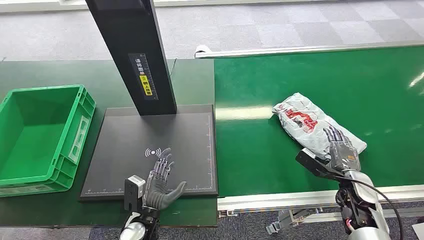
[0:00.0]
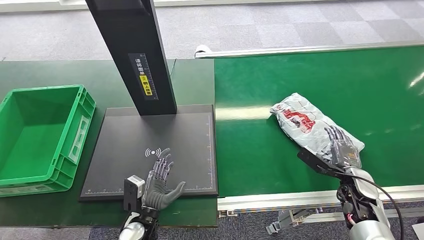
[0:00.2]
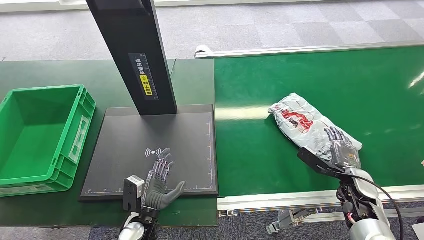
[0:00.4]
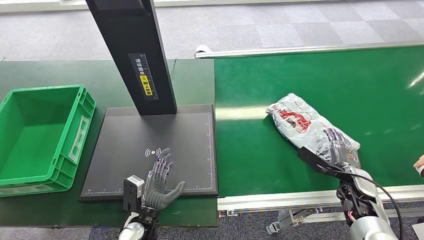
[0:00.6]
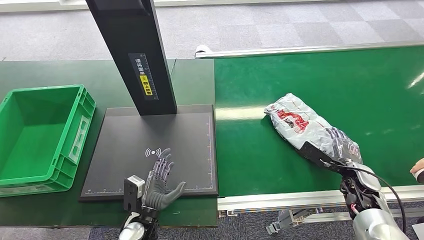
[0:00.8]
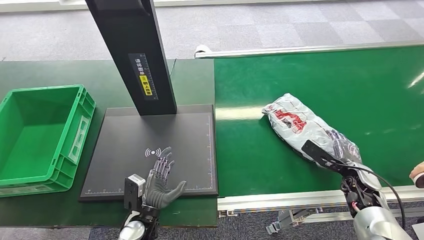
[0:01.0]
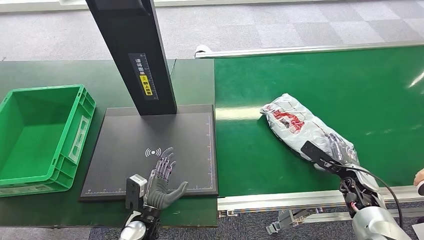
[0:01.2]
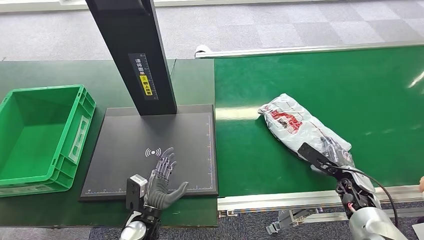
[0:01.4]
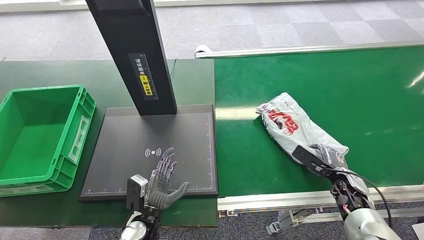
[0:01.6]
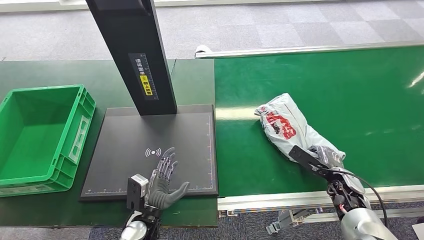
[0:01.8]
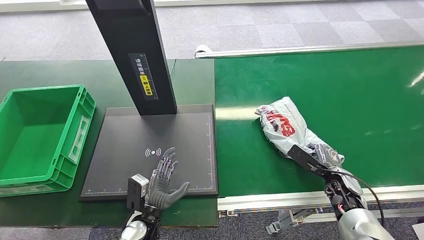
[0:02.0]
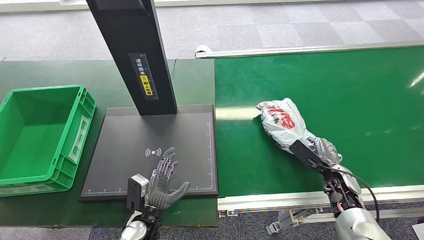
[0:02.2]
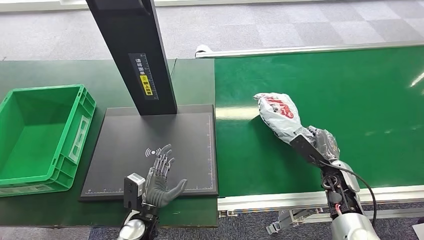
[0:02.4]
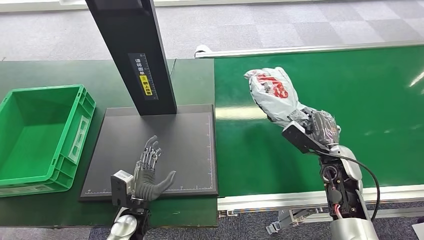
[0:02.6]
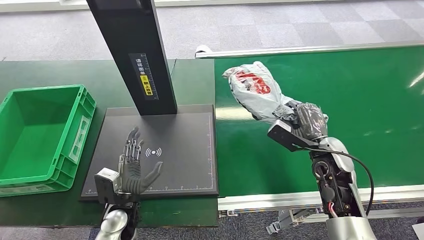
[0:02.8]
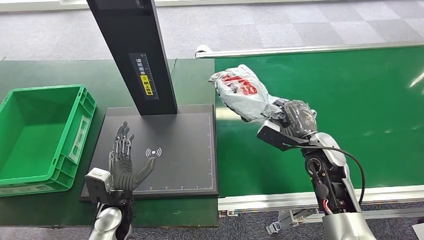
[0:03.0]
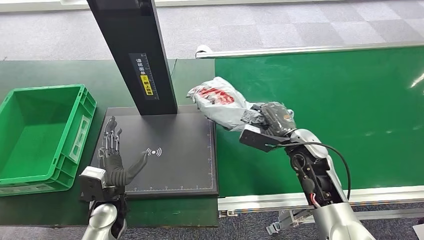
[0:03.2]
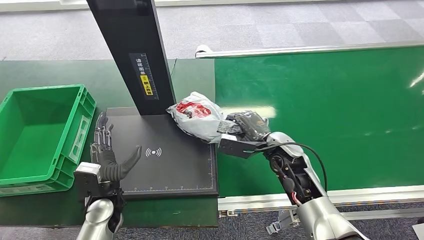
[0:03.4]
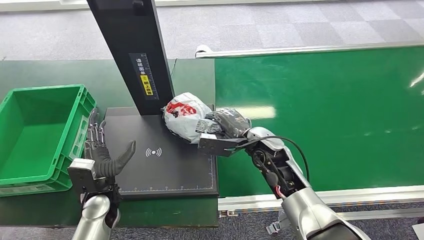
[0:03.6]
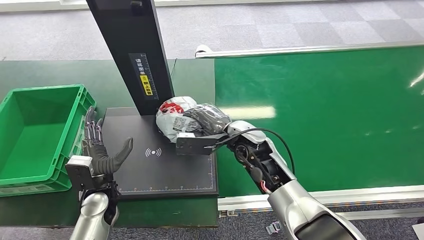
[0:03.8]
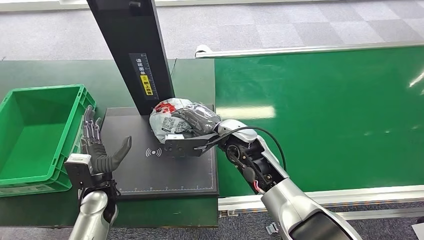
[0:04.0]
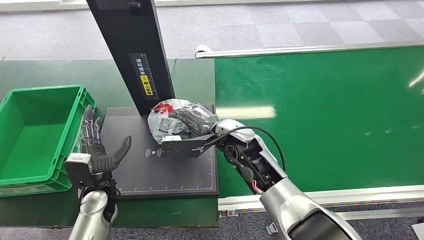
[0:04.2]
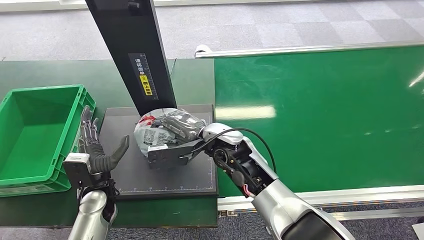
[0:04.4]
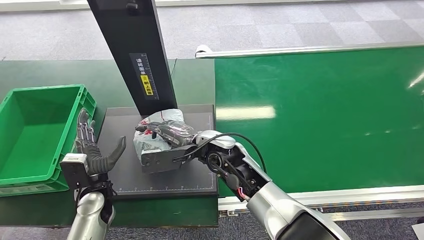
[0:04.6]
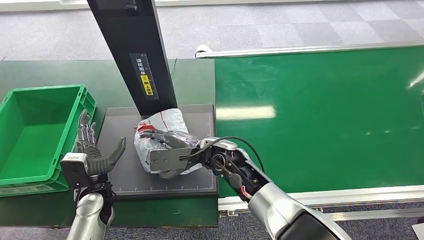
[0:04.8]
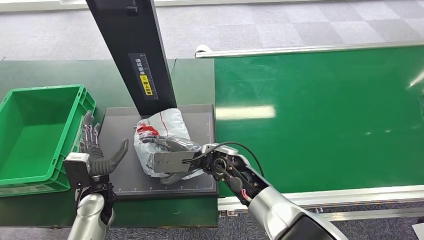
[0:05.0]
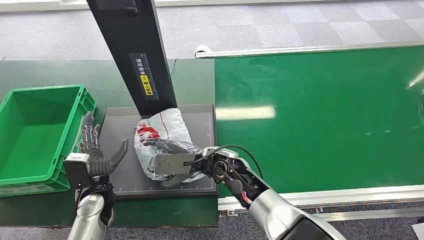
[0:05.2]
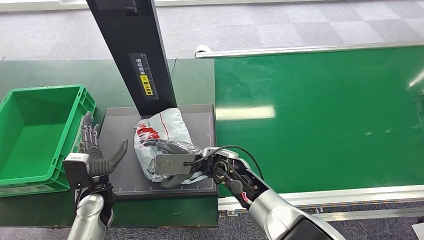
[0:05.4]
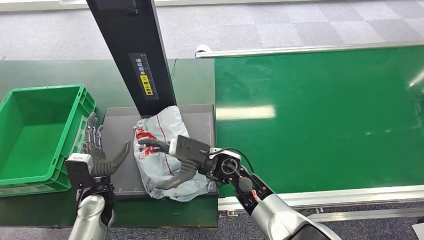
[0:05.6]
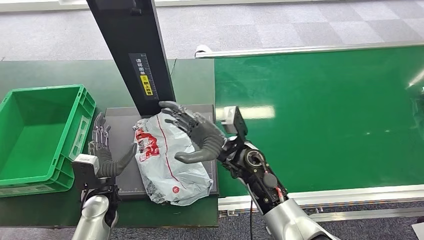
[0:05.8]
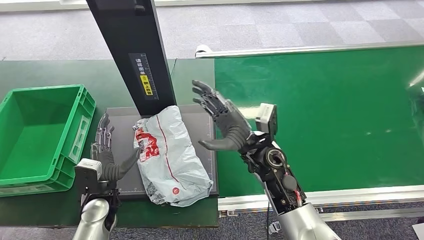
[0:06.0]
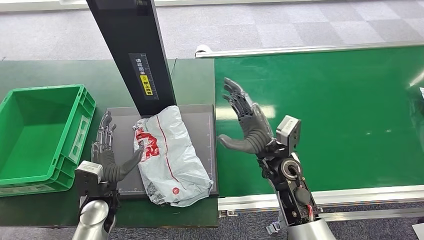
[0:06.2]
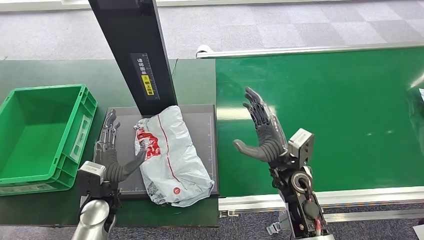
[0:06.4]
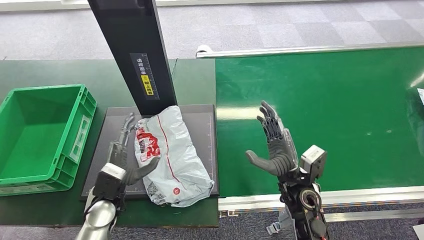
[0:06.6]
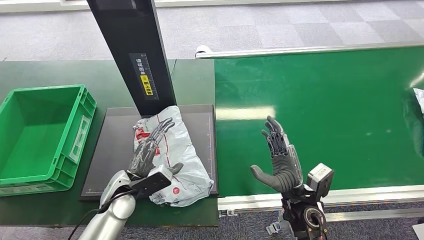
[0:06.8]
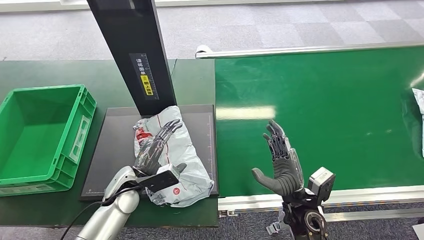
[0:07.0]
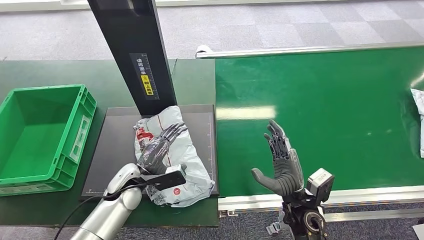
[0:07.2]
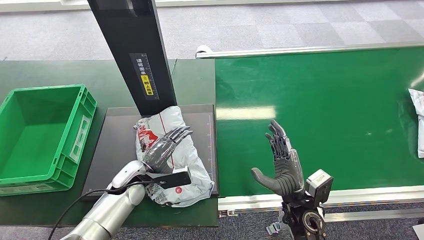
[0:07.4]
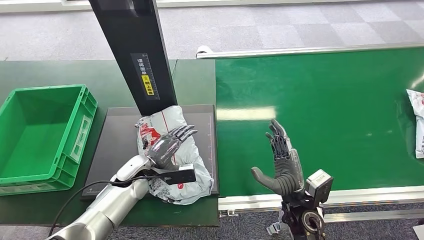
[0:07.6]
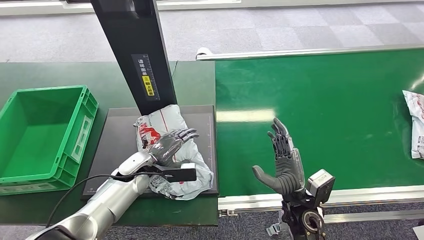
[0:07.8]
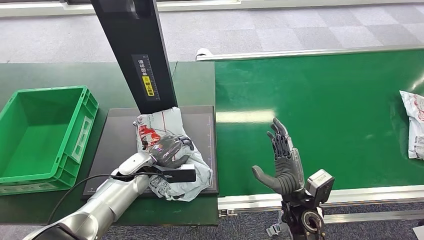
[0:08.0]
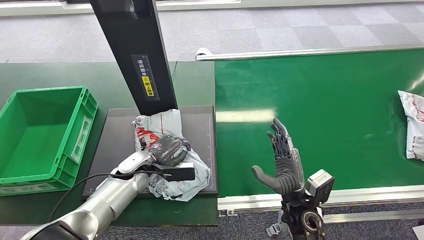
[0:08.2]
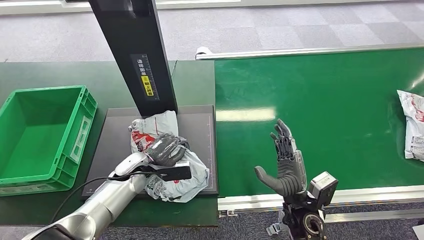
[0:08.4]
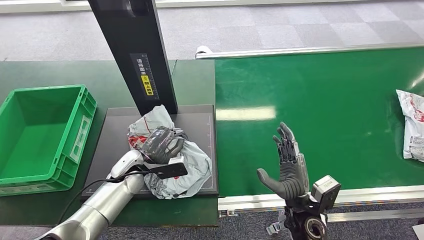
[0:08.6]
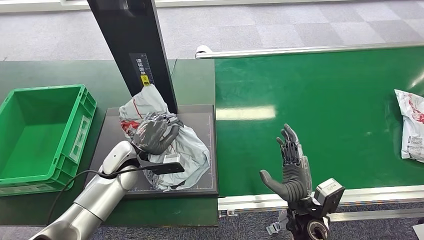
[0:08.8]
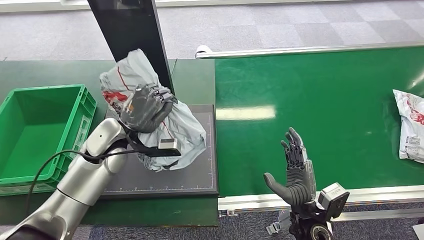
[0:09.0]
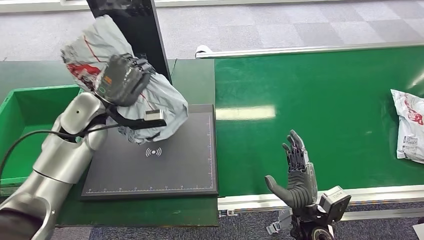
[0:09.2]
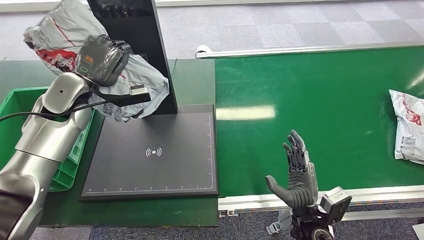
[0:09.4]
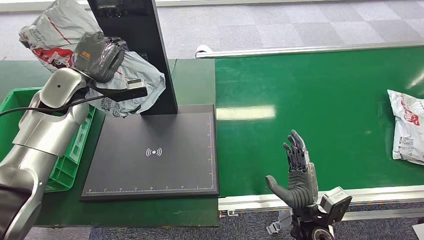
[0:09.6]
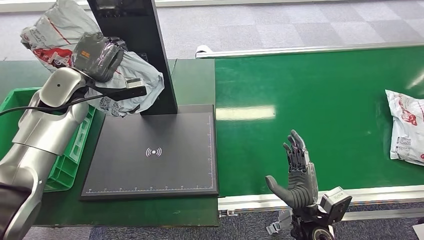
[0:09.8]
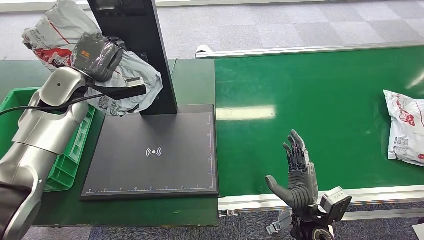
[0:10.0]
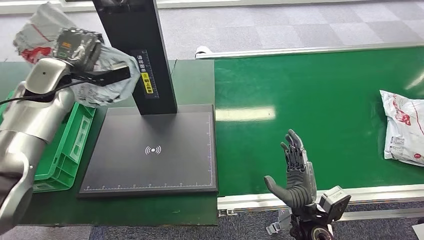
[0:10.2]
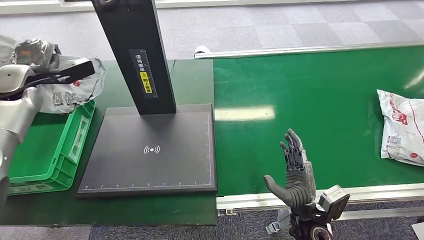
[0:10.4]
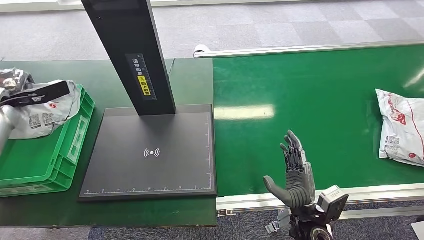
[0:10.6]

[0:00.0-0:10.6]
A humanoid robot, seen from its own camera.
Step, 0:00.0 to 0:03.0: Pick up the package from the conveyor belt.
Step, 0:03.2 to 0:06.2: Place the package onto the inbound machine.
Step, 0:06.6 to 0:09.8: Pick up the package from the inbound machine.
0:01.6 to 0:03.0: The right hand goes roughly 20 cm to the left and upward. Meanwhile the left hand travels to the left and upward by about 10 cm.
0:04.6 to 0:06.0: The right hand is displaced to the right by about 10 cm.

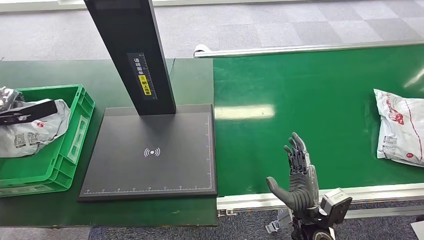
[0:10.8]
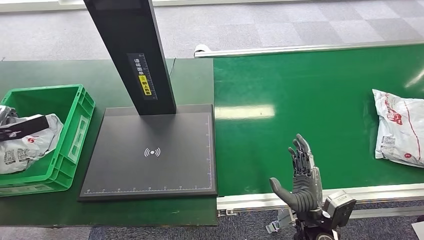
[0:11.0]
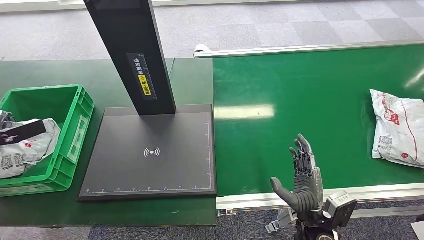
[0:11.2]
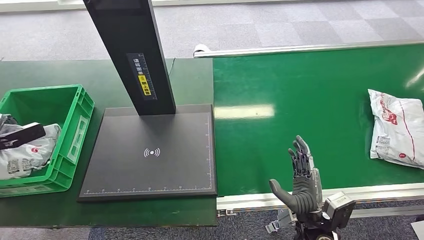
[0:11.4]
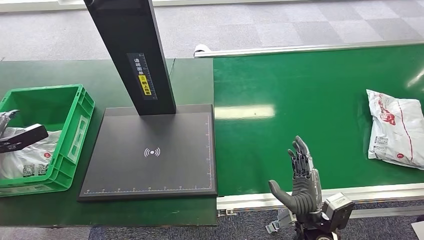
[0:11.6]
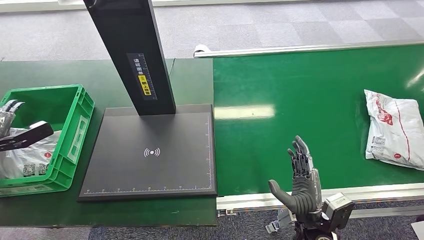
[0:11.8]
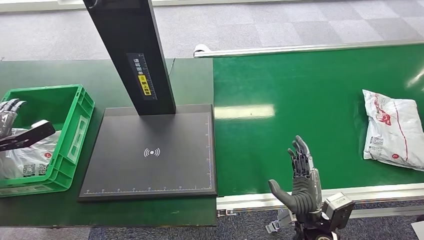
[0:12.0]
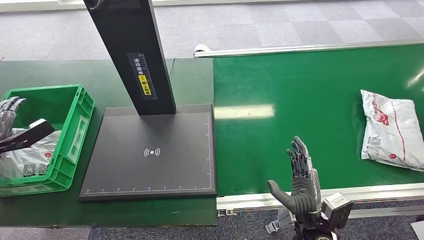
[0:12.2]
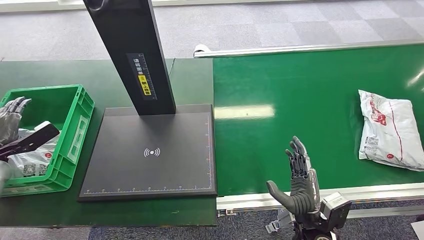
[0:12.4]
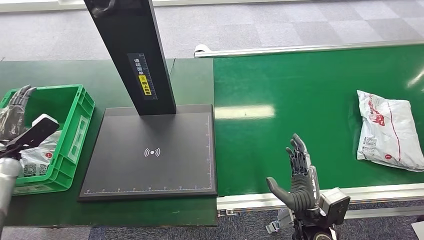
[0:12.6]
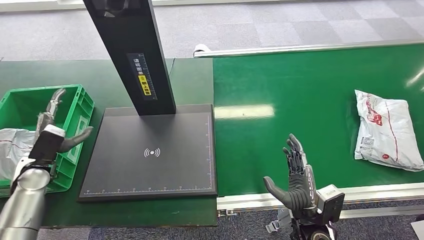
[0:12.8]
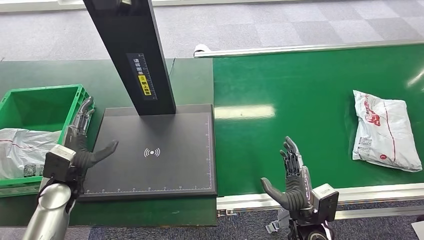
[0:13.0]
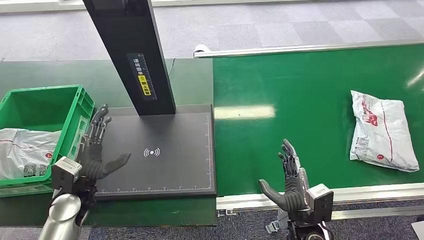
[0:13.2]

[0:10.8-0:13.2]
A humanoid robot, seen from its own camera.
Step, 0:10.8 to 0:13.0: Place the package into the parcel locker.
0:10.8 to 0:12.0: The left hand shifts some 10 cm downward and backward.
0:12.0 to 0:13.2: The left hand moves to the right, some 25 cm.

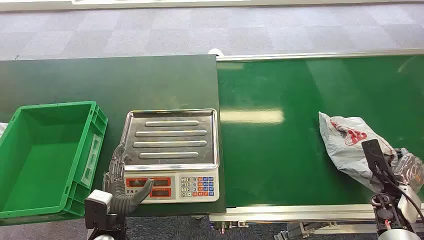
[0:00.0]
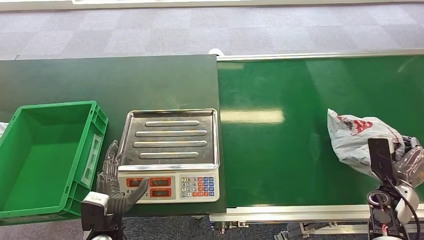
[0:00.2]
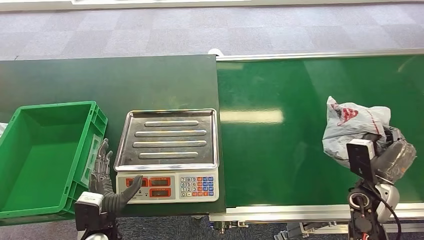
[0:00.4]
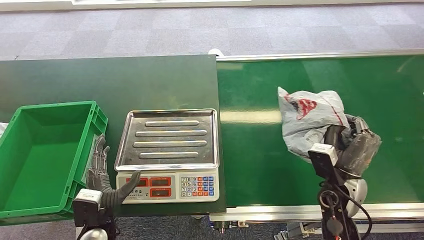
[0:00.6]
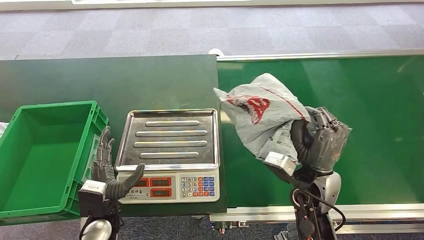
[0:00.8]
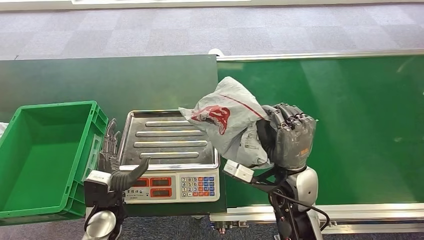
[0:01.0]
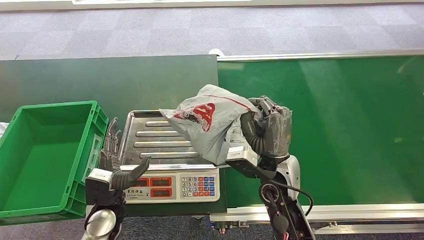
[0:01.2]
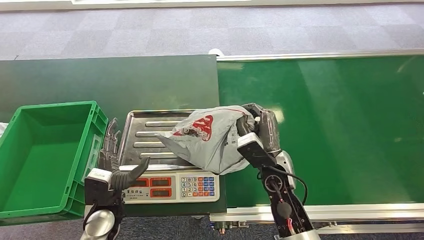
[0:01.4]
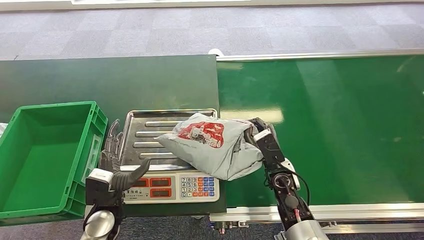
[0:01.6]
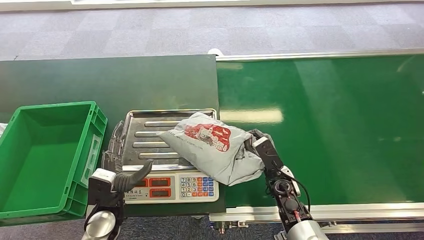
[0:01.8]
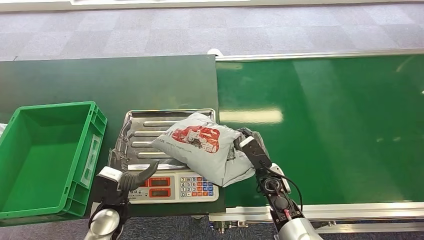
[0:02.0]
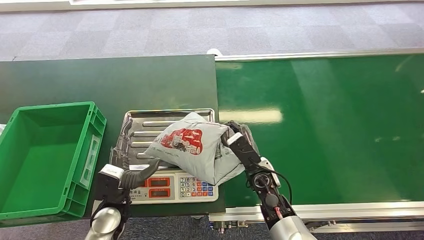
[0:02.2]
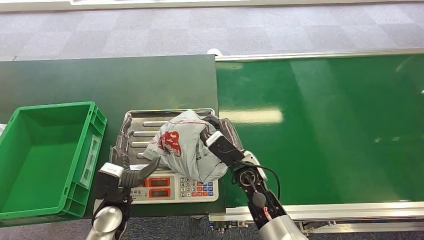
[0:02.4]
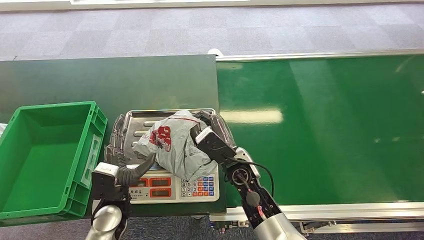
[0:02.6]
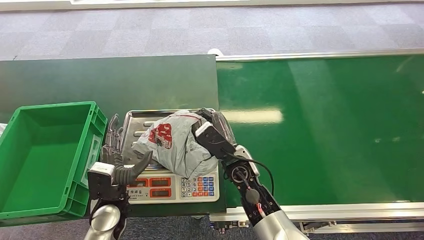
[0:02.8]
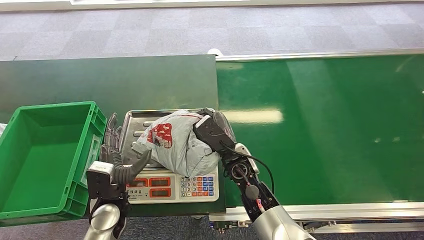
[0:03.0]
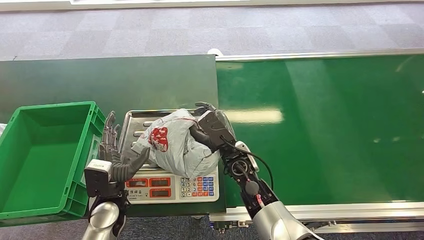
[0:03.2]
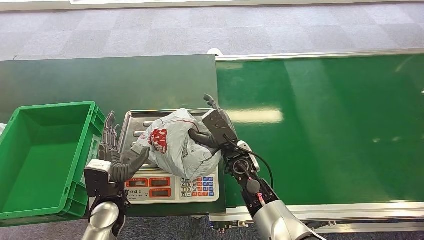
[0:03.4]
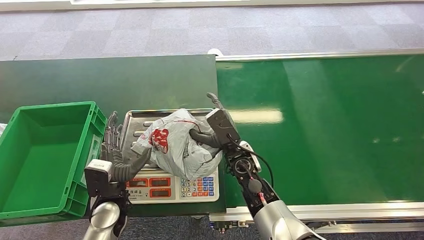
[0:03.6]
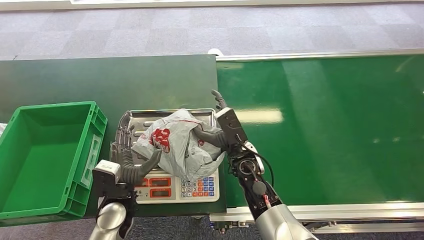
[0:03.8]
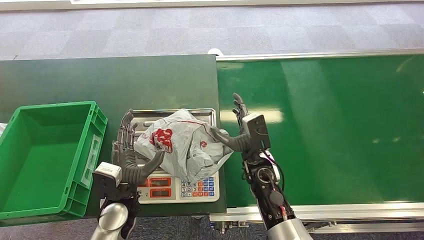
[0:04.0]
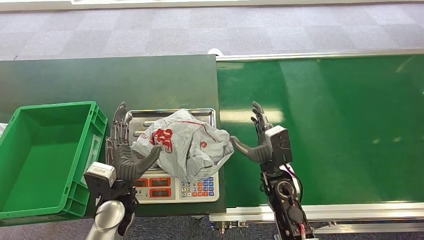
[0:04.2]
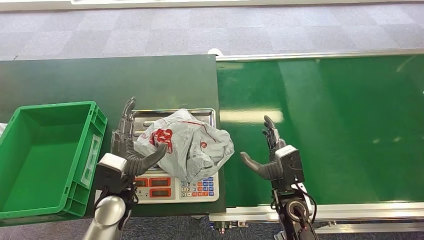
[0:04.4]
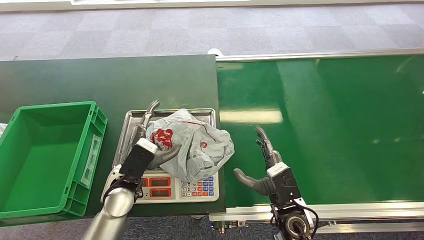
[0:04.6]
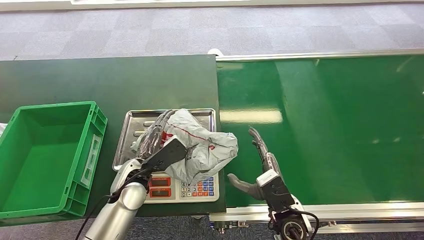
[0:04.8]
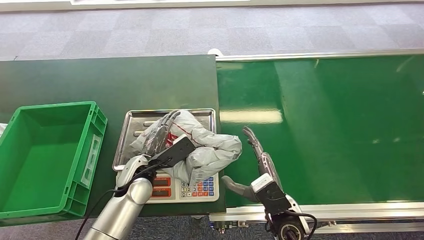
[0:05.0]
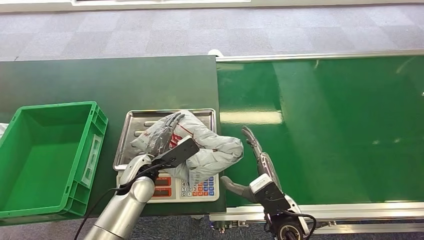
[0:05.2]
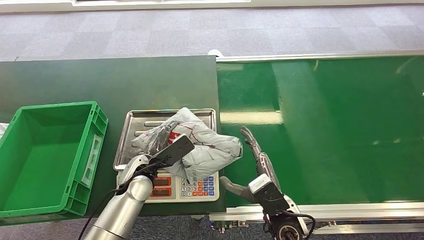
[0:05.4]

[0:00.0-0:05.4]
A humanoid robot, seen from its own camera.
Step, 0:00.0 to 0:00.4: Pick up the package from the conveyor belt.
Step, 0:01.4 to 0:02.4: Place the package onto the inbound machine.
0:01.4 to 0:02.8: The right hand moves to the left, some 10 cm.
0:04.0 to 0:05.4: The left hand is displaced forward by some 5 cm. Meanwhile the right hand goes some 10 cm backward.
